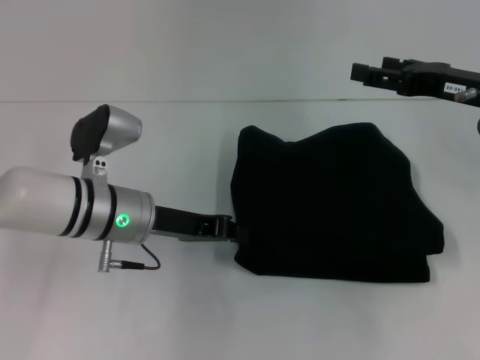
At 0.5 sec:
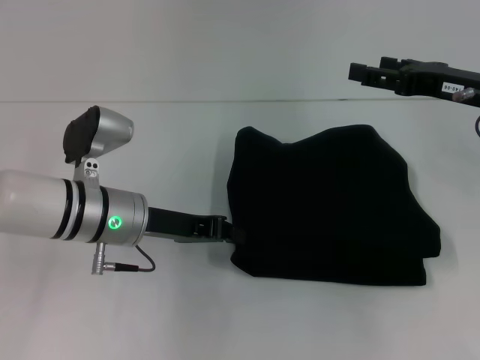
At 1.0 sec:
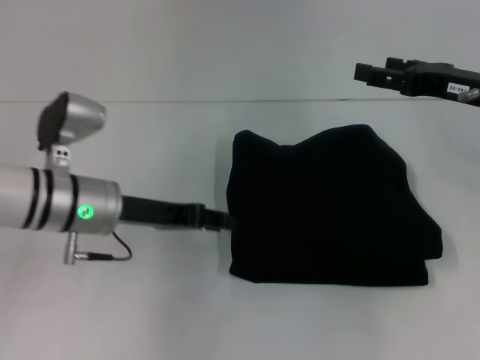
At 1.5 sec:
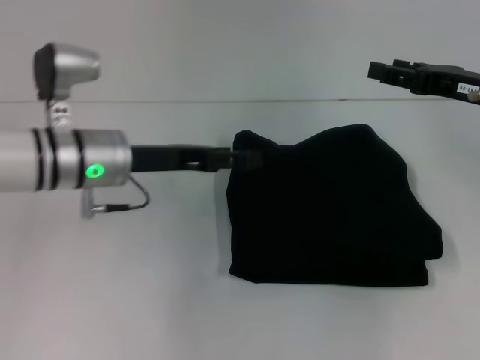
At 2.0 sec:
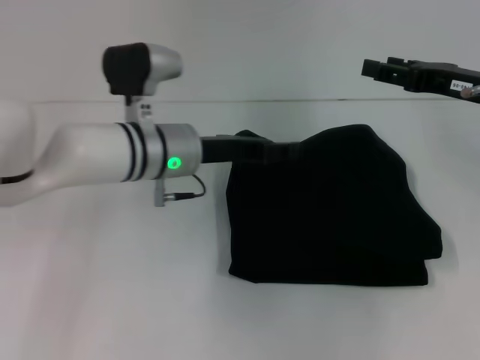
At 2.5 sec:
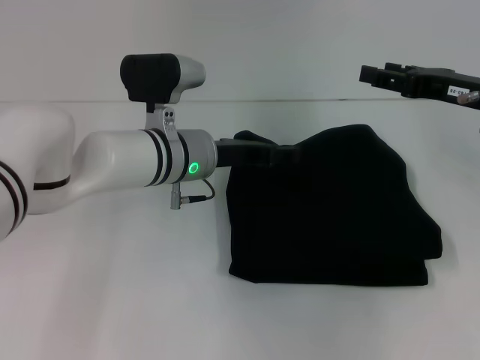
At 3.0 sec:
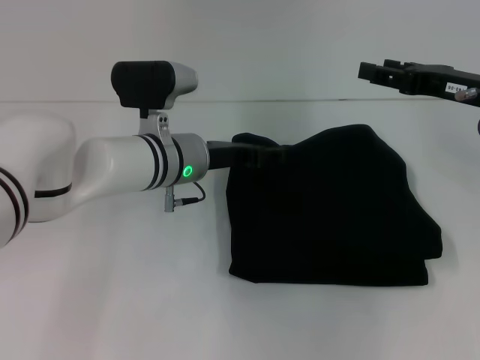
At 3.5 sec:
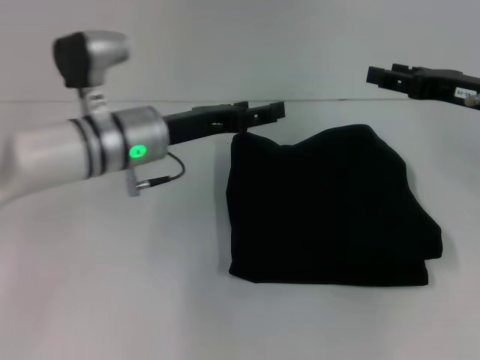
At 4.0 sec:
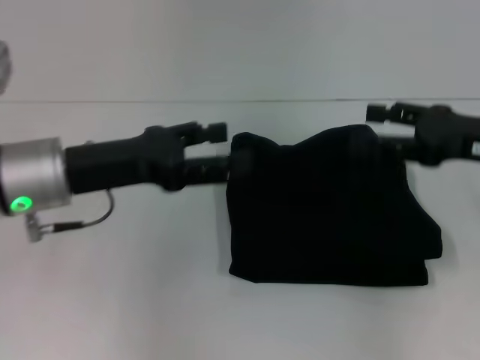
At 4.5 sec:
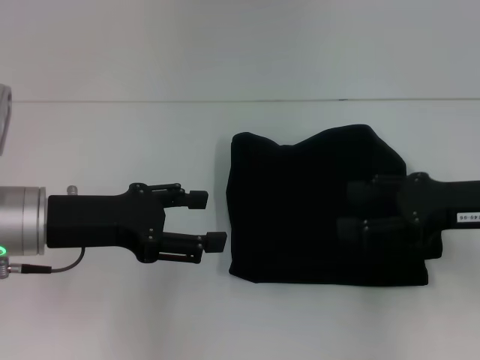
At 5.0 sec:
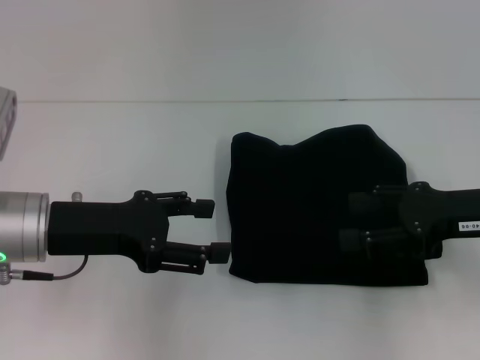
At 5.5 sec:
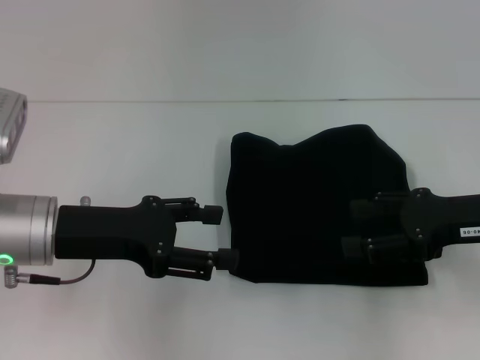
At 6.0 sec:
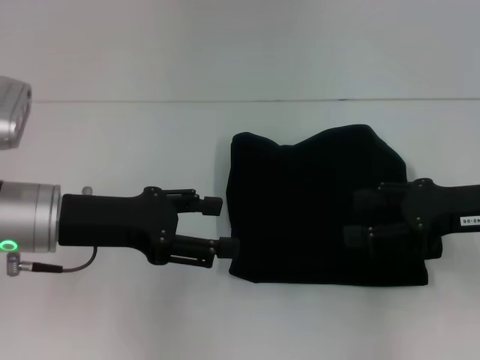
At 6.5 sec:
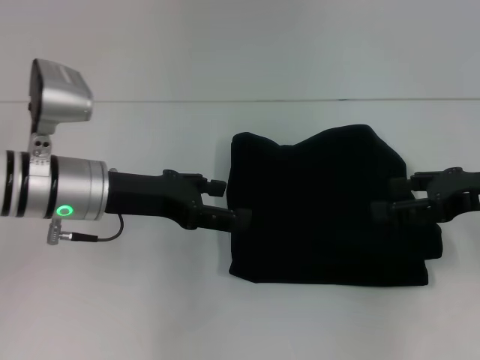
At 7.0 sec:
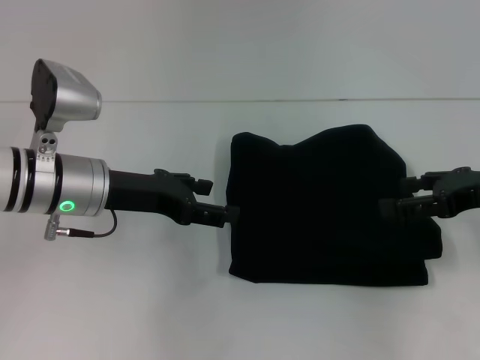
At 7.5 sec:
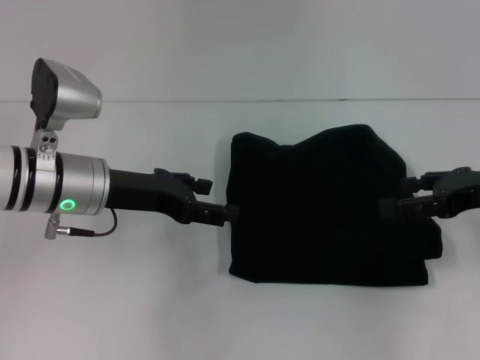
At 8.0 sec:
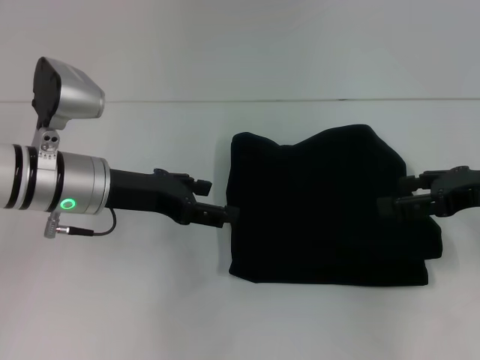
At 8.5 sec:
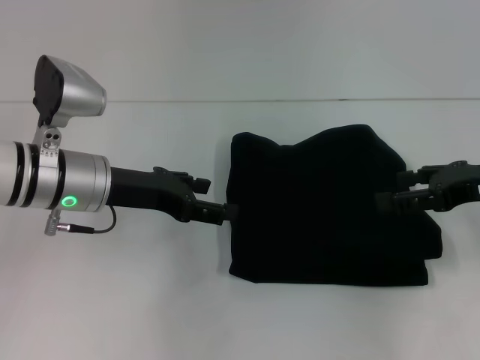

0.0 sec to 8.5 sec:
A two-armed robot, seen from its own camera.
0.0 sec to 2.0 sec: The left gripper shifts by roughly 5 cm, and opens up.
2.0 sec to 4.0 sec: The left gripper is displaced to the left and backward by some 15 cm. The right gripper is displaced backward by about 5 cm.
6.5 sec to 8.5 sec: The grippers move only a little.
